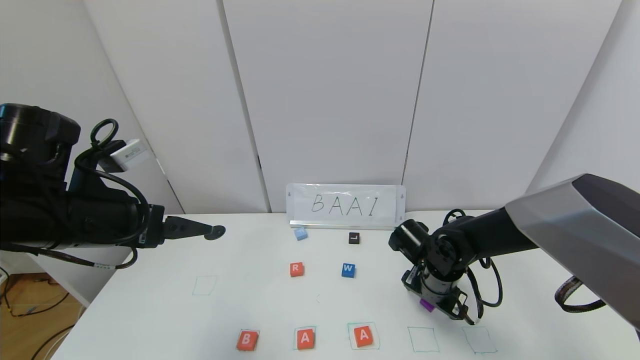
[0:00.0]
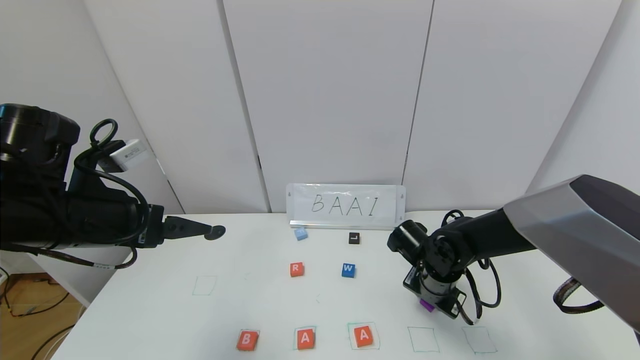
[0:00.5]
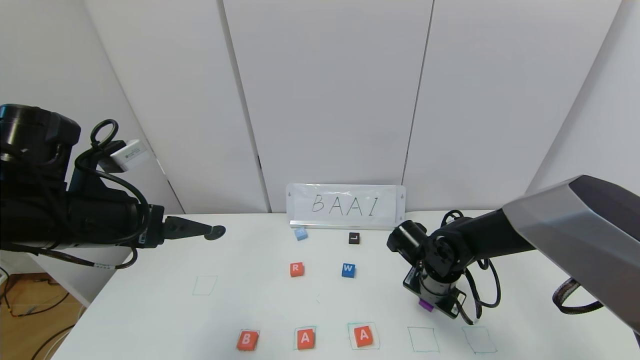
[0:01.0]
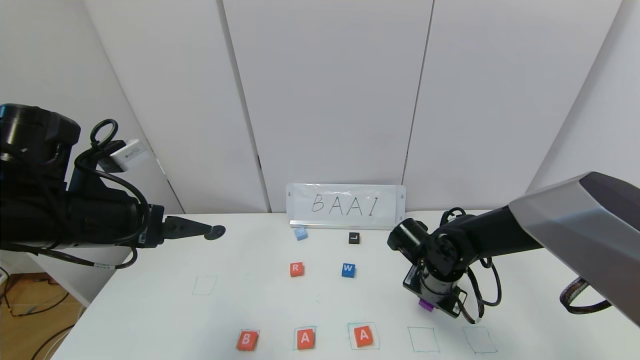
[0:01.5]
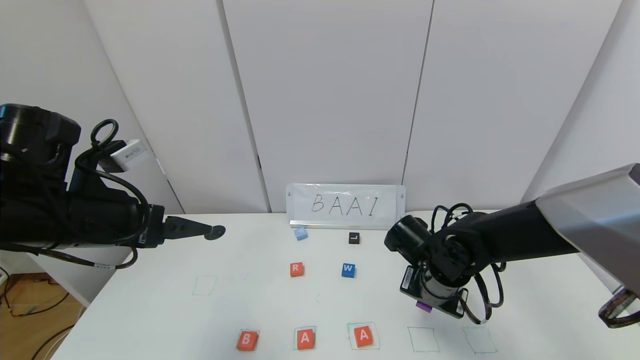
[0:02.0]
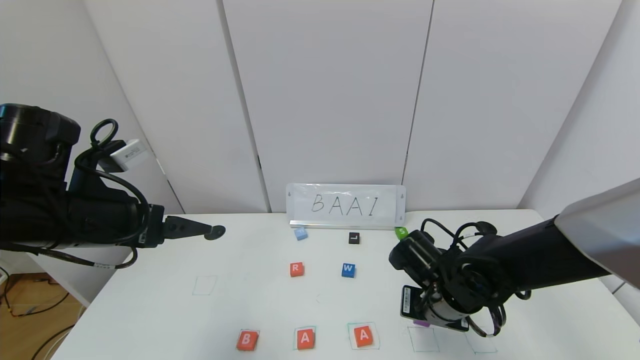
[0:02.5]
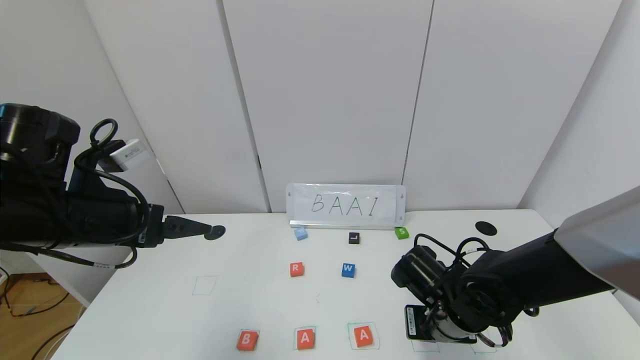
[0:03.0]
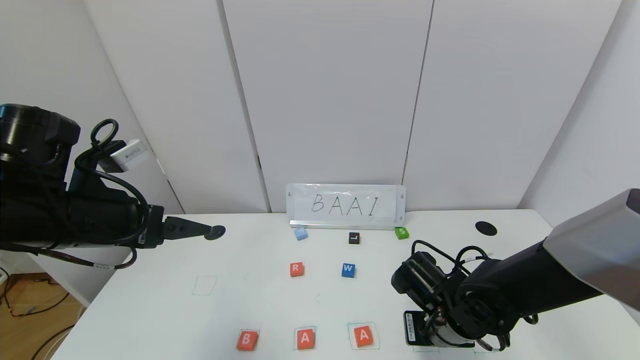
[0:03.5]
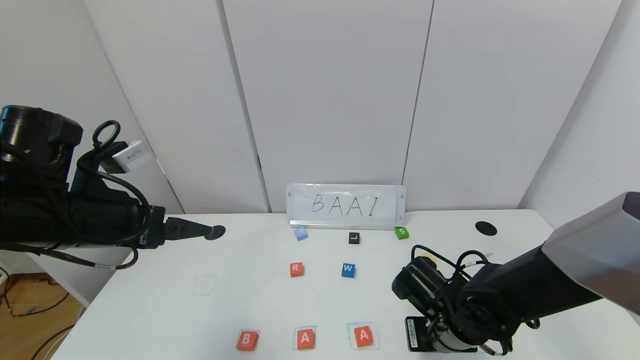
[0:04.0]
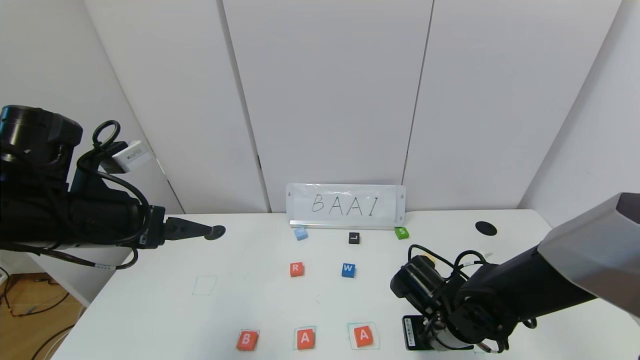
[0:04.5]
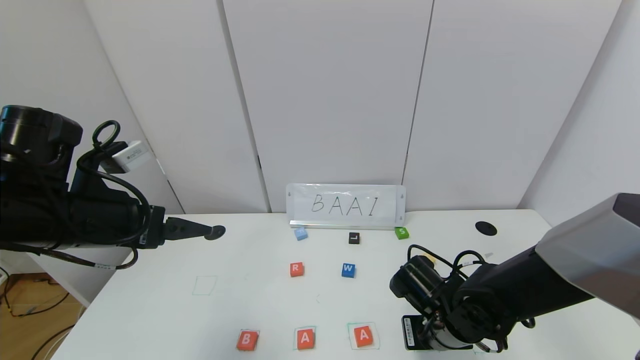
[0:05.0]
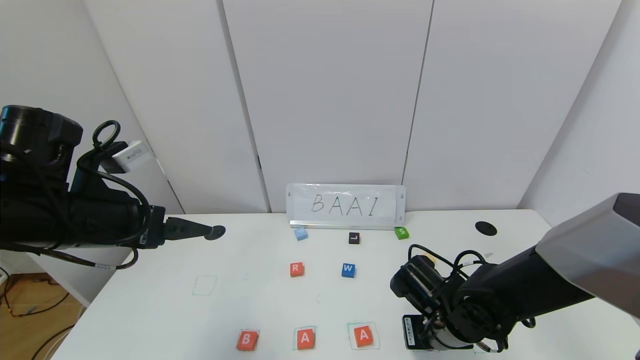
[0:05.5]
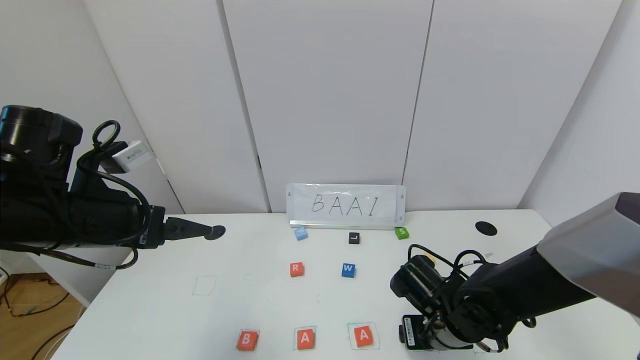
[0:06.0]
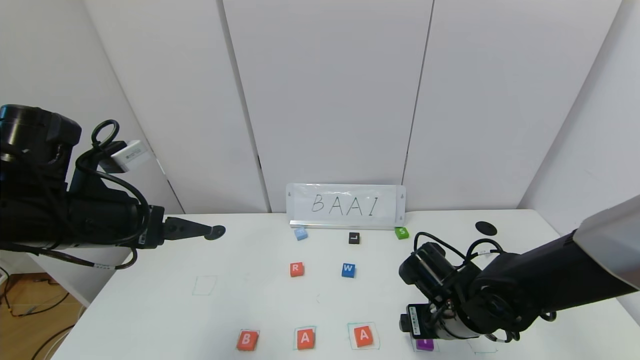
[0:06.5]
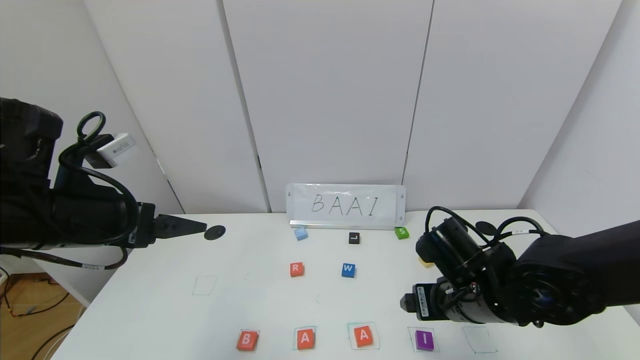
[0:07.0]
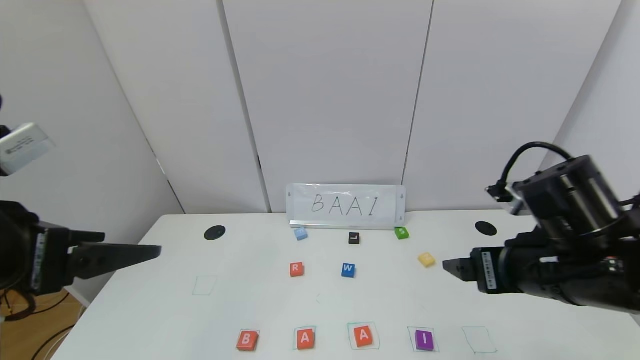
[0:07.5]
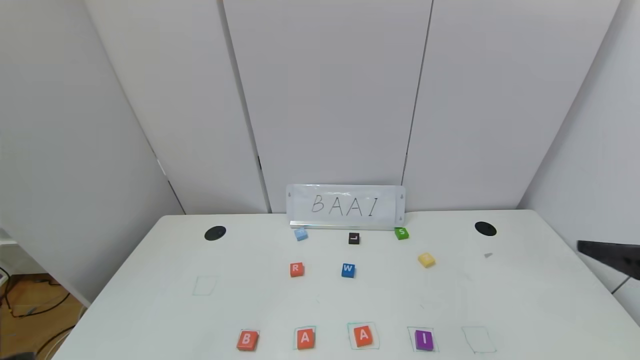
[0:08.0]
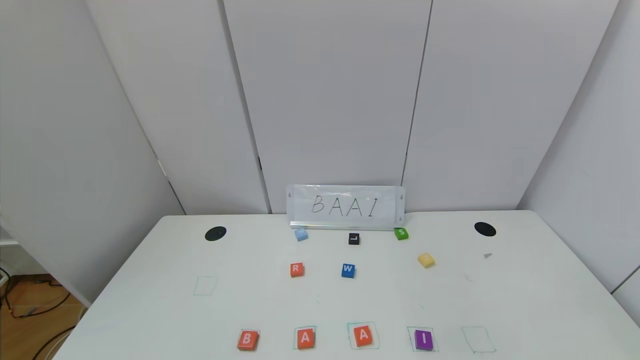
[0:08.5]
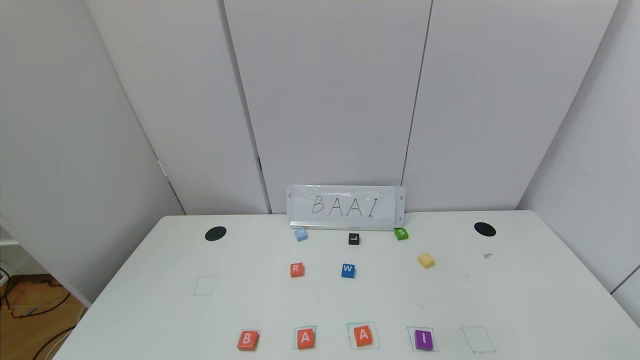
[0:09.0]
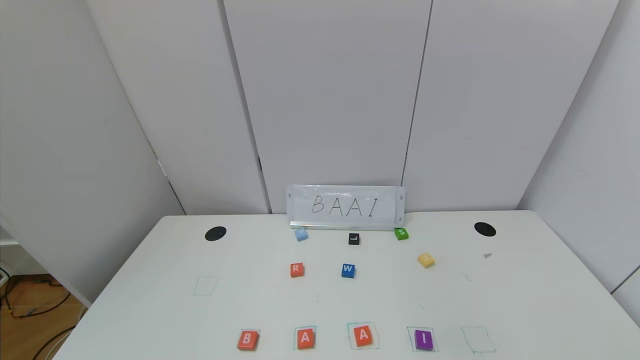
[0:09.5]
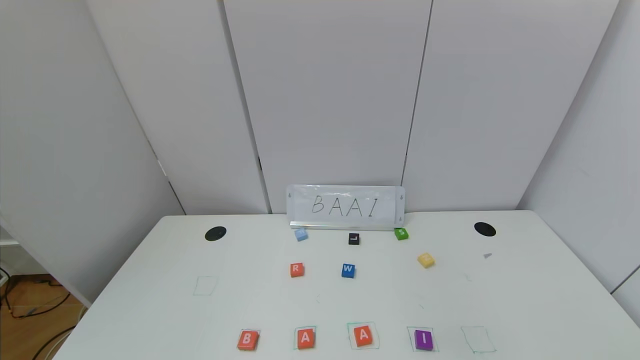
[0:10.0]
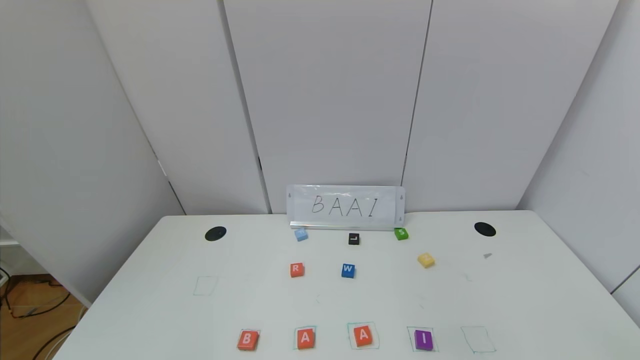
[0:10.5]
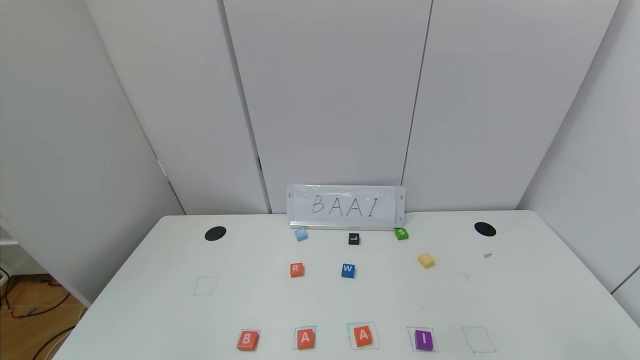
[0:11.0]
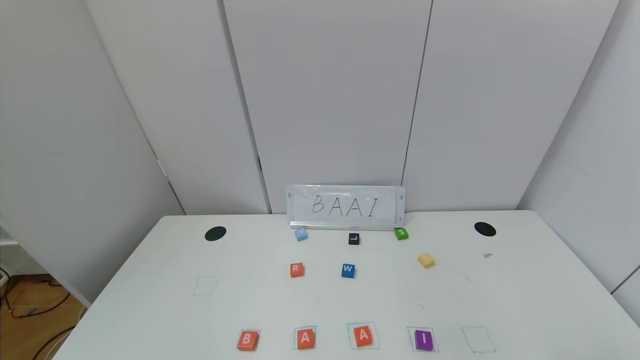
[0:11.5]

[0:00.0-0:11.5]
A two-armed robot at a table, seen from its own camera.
Task of the whole recording: use the gripper to find blocks with the letters b, a, a, and i on the table and arrange them into BAAI, then find r and N and turn the arranged baai into brian.
Step, 0:00.0 to 0:05.5: Place the block I in the fourth location.
0:00.0 to 0:02.0: The right gripper closes its fingers.
0:02.0 to 0:04.0: The right gripper goes about 5 cm backward.
0:04.0 to 0:06.0: The right gripper opens up.
0:06.0 to 0:07.5: The right gripper is displaced upward by about 15 cm, while the left gripper moves backward, approximately 10 cm.
0:07.5 to 0:09.5: The left gripper goes about 30 cm backward, while the right gripper heads backward and to the right, covering about 35 cm.
